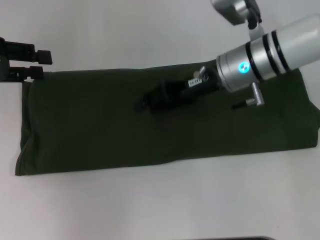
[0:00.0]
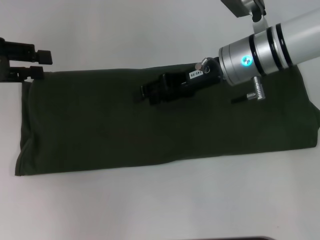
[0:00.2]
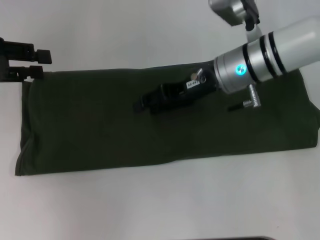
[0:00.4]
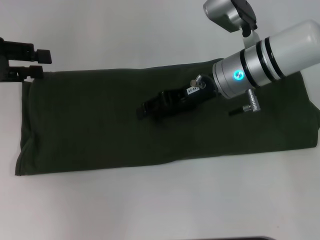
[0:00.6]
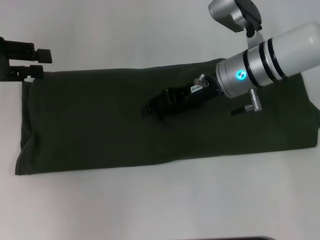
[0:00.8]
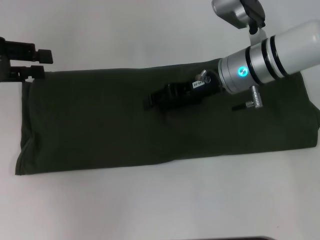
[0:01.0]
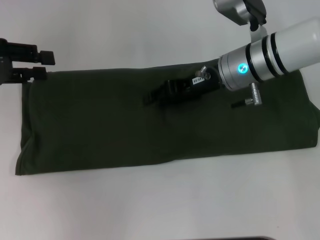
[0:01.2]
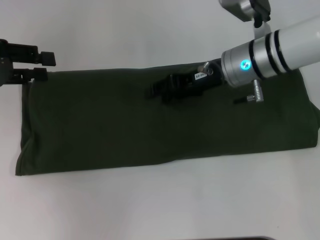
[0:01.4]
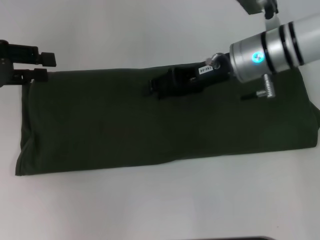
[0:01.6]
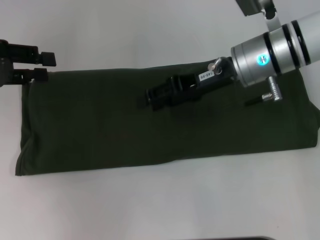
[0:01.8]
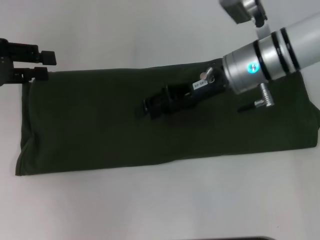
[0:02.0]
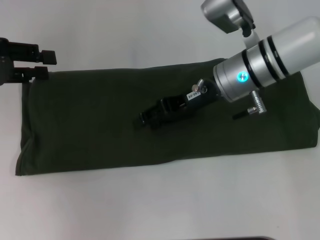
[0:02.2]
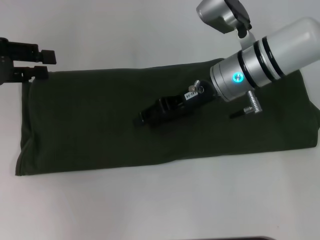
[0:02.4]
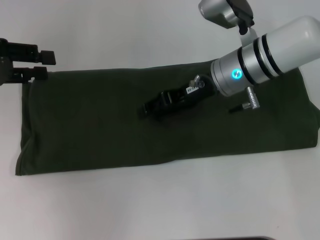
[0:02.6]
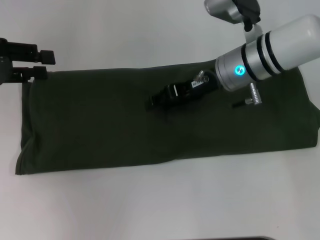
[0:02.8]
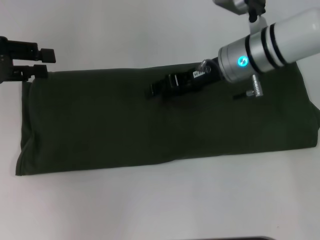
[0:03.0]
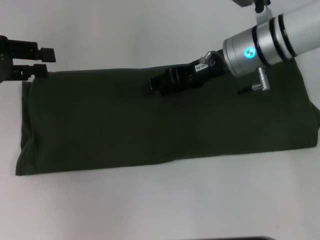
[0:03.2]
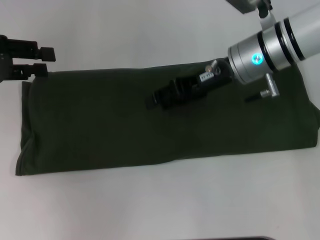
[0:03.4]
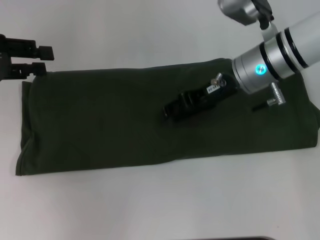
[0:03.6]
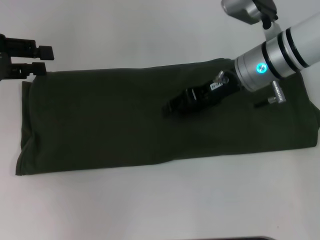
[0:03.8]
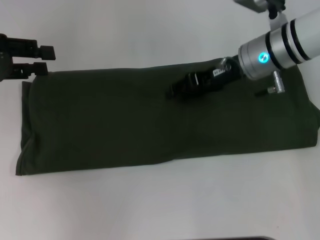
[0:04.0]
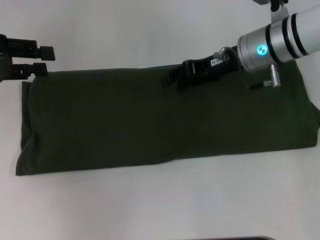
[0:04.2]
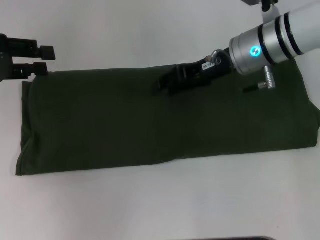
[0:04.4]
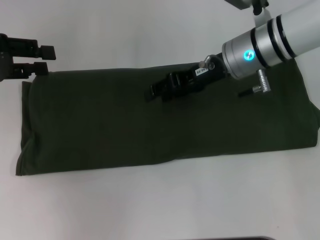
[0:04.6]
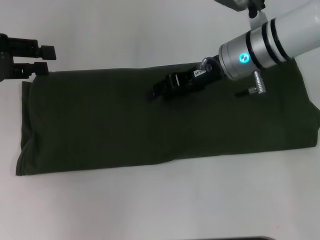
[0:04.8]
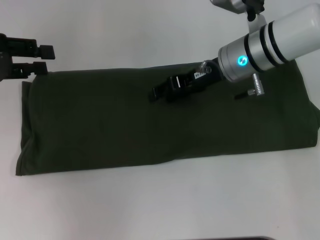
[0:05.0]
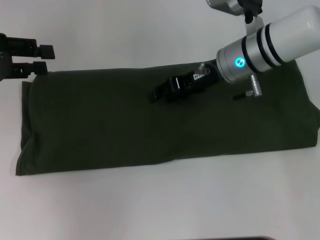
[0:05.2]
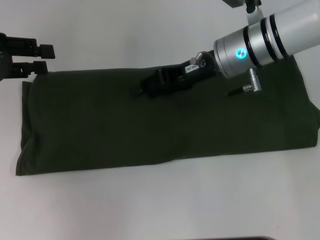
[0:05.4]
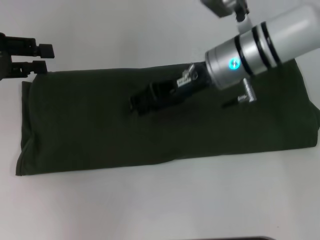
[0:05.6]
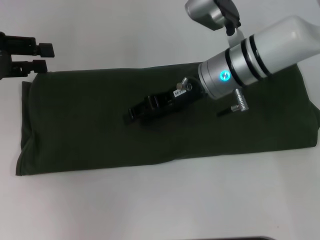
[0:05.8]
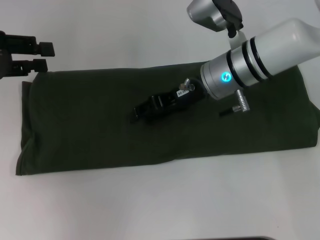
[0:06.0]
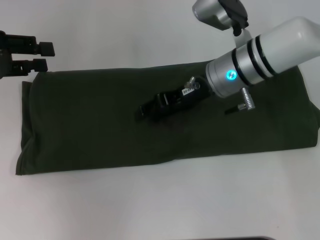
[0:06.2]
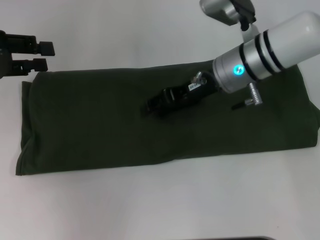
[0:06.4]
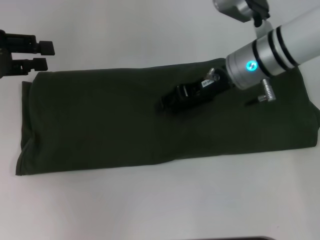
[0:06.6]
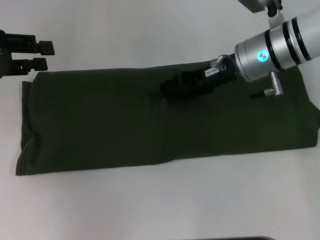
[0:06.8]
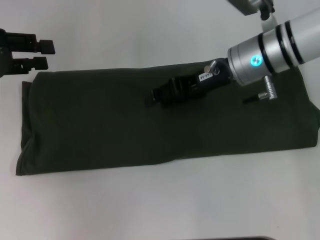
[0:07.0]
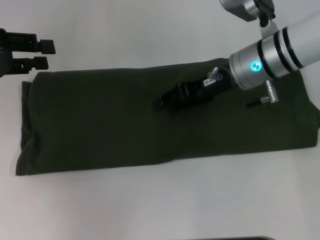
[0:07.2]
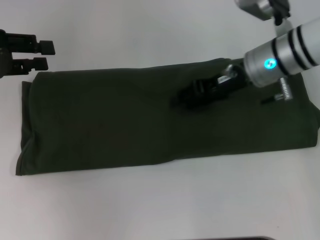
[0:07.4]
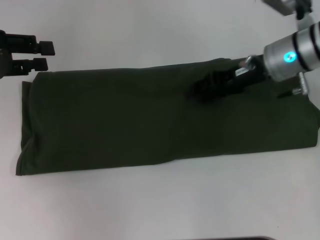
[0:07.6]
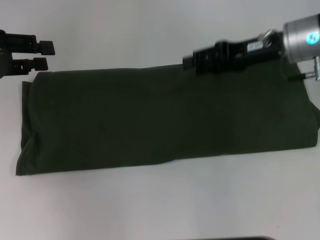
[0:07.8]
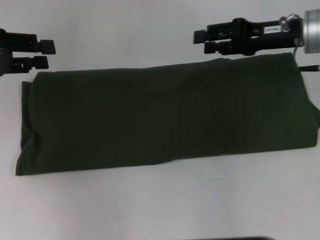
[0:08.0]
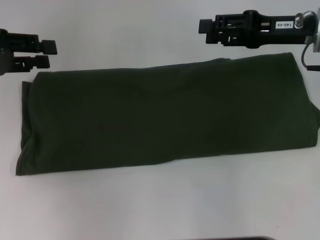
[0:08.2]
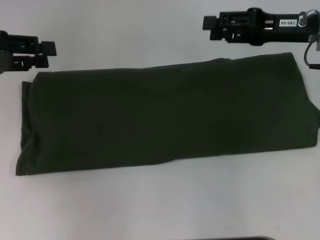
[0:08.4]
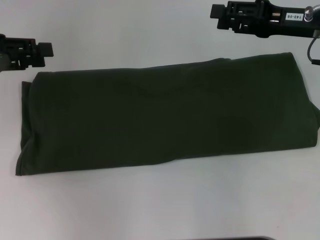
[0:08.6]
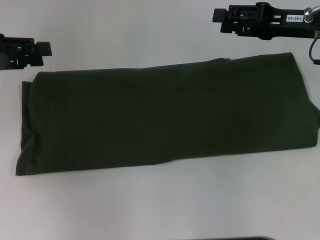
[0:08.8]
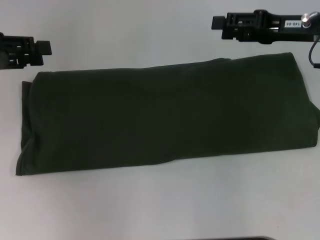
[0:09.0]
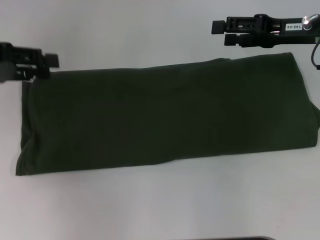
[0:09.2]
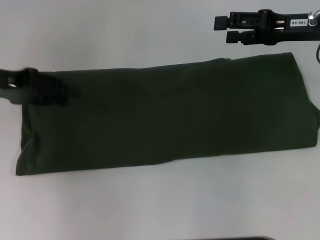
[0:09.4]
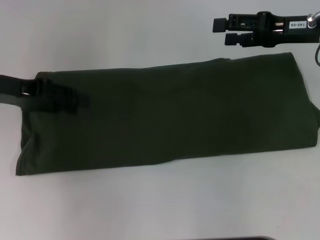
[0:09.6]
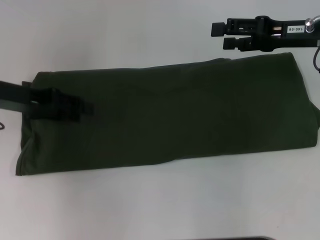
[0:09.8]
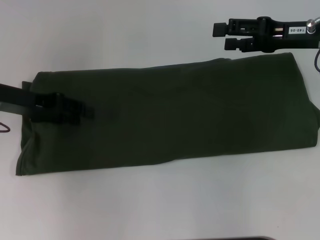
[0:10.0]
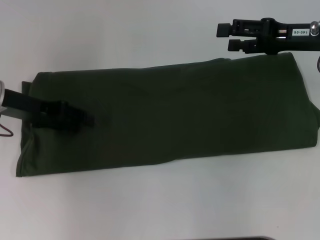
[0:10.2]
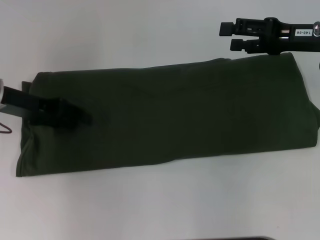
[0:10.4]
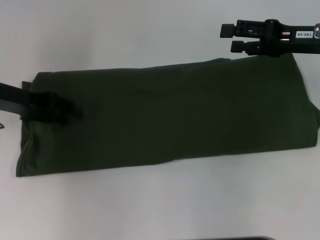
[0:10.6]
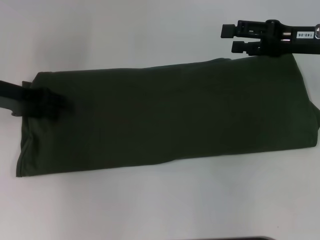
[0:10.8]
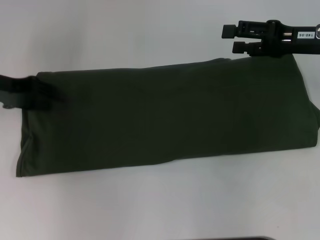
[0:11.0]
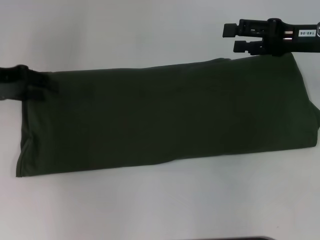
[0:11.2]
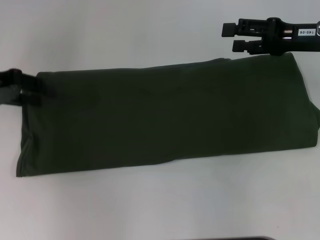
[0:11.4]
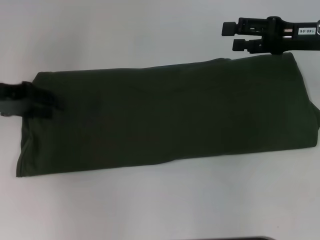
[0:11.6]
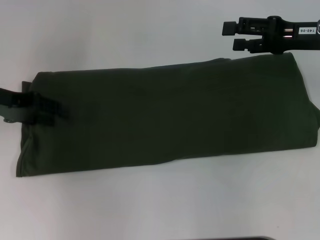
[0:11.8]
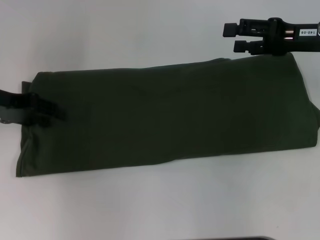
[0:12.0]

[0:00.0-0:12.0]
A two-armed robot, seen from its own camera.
0:00.0 to 0:06.0: The grippers stay close to where they were, moving slightly.
0:06.0 to 0:07.6: The right gripper goes roughly 10 cm to the right.
0:07.6 to 0:09.0: The right gripper travels to the right by some 5 cm.
0:09.0 to 0:10.4: The left gripper is displaced downward and to the right by approximately 10 cm.

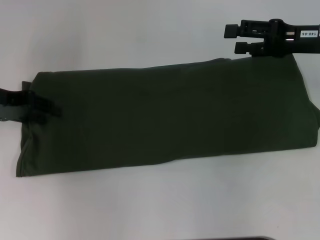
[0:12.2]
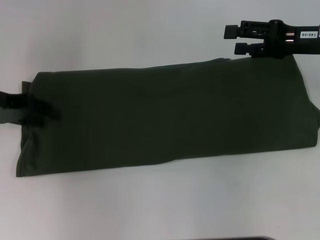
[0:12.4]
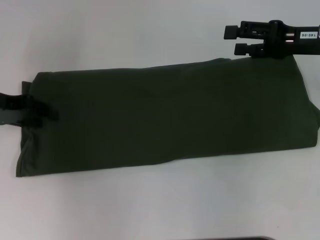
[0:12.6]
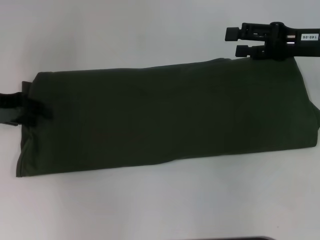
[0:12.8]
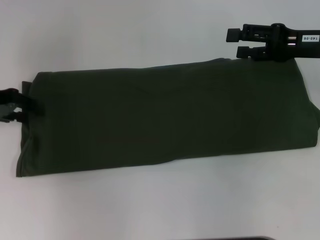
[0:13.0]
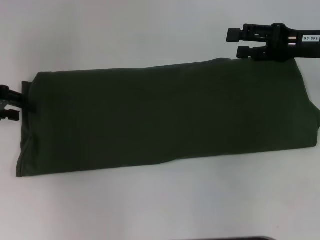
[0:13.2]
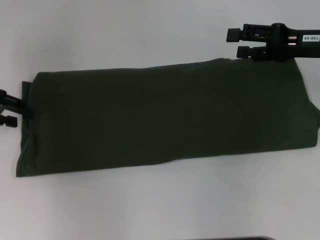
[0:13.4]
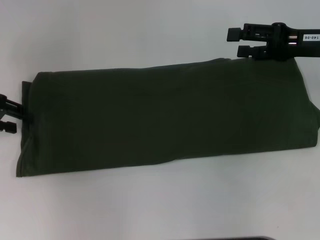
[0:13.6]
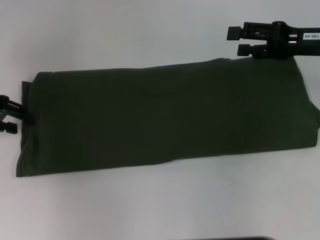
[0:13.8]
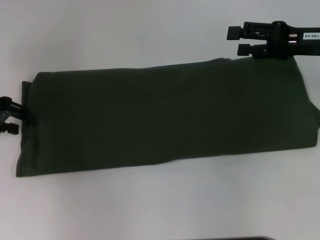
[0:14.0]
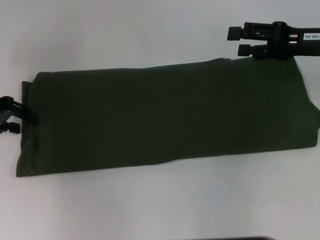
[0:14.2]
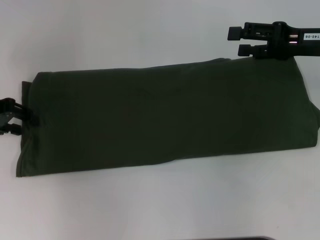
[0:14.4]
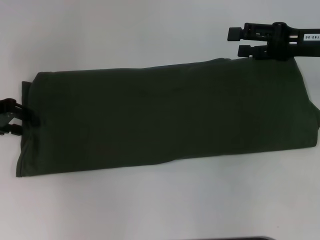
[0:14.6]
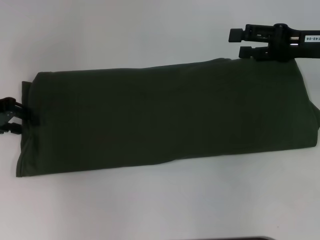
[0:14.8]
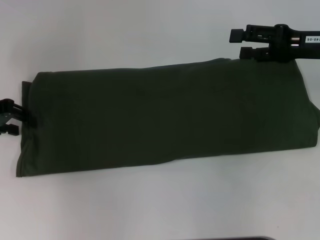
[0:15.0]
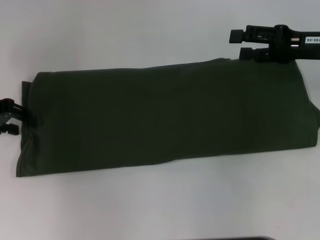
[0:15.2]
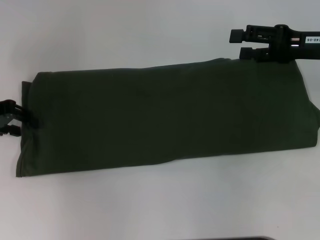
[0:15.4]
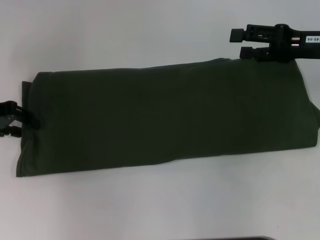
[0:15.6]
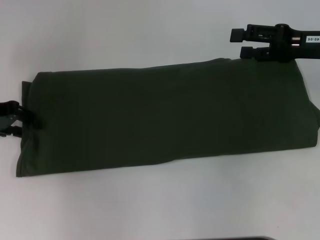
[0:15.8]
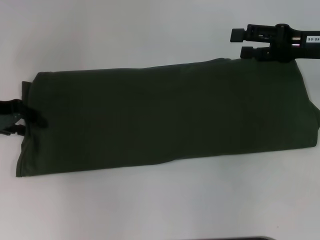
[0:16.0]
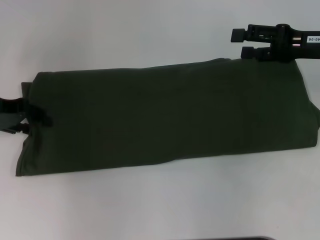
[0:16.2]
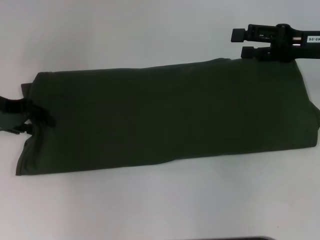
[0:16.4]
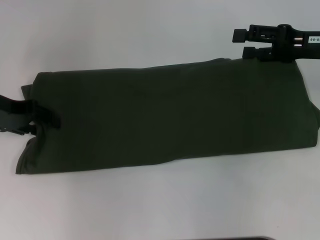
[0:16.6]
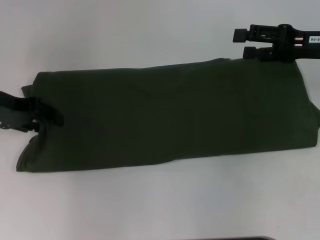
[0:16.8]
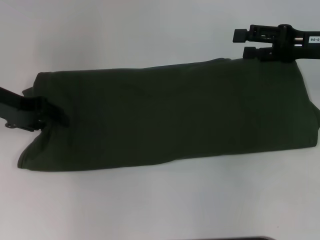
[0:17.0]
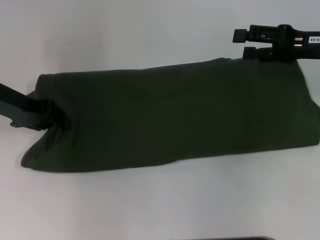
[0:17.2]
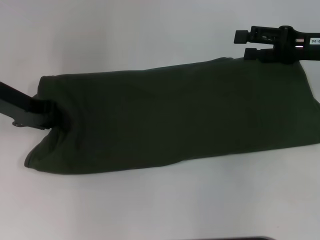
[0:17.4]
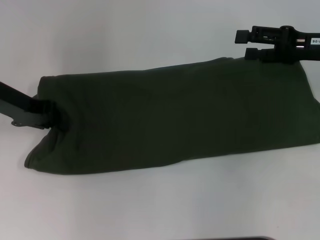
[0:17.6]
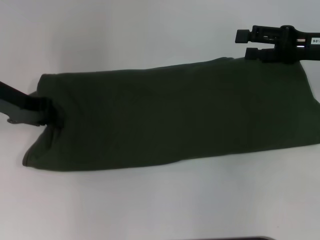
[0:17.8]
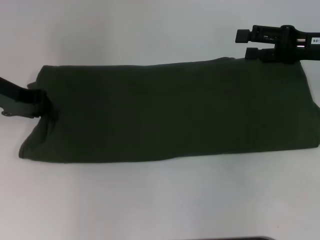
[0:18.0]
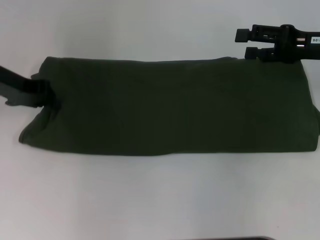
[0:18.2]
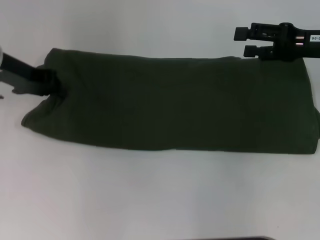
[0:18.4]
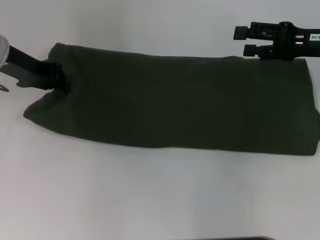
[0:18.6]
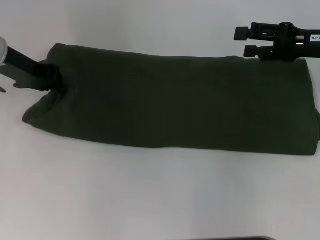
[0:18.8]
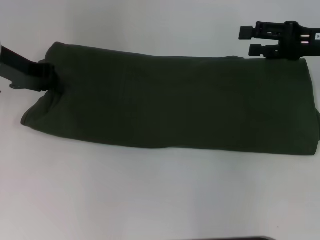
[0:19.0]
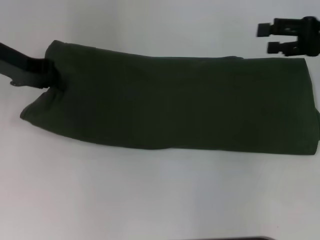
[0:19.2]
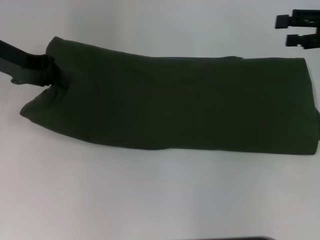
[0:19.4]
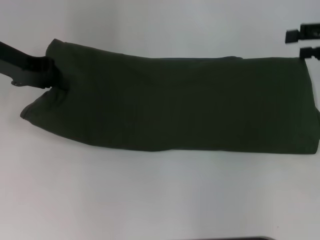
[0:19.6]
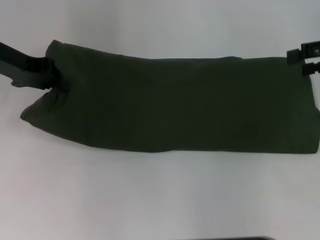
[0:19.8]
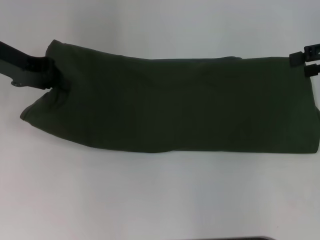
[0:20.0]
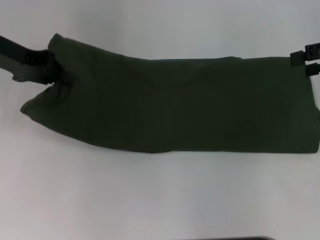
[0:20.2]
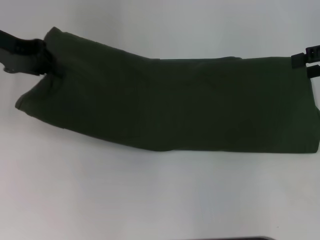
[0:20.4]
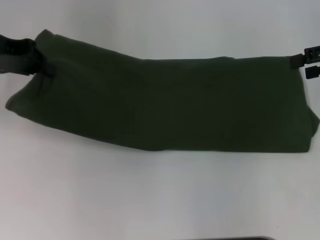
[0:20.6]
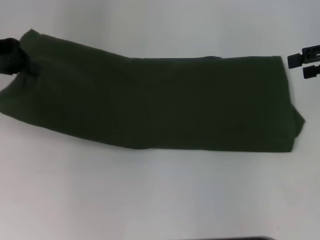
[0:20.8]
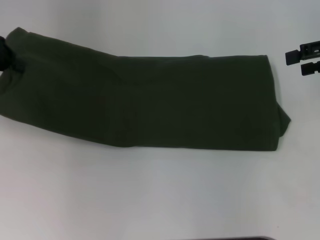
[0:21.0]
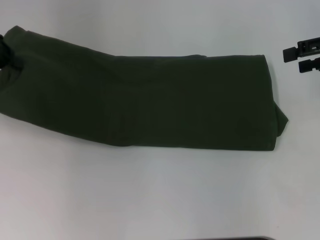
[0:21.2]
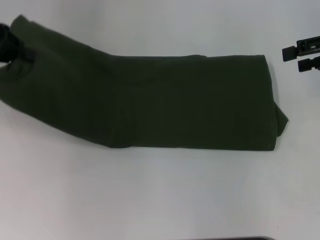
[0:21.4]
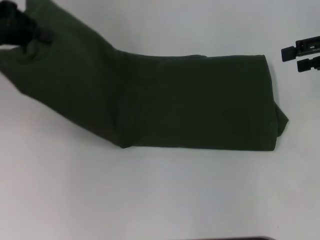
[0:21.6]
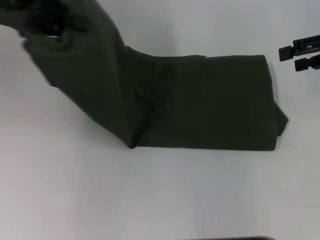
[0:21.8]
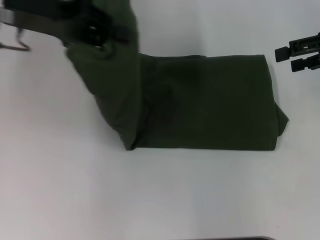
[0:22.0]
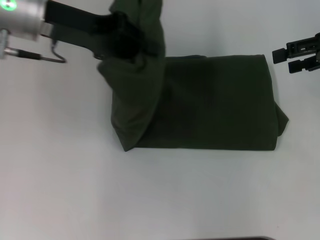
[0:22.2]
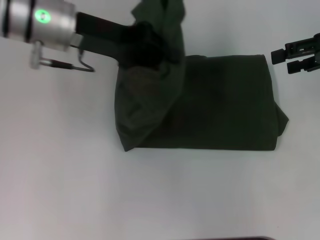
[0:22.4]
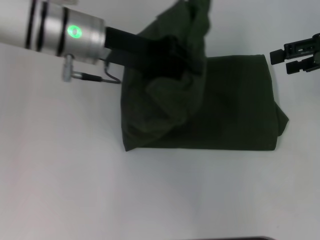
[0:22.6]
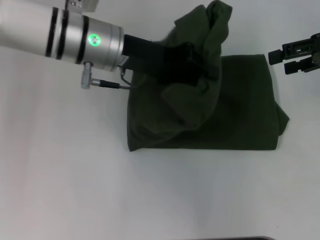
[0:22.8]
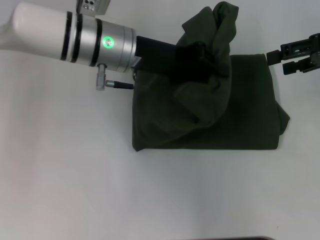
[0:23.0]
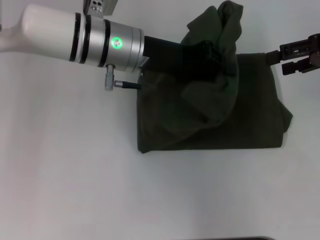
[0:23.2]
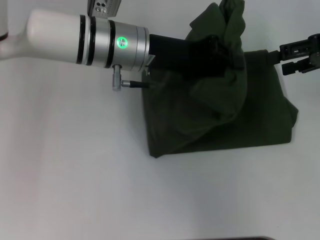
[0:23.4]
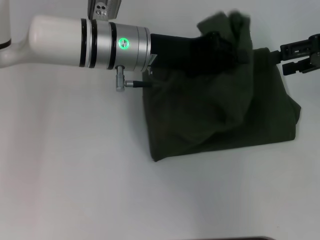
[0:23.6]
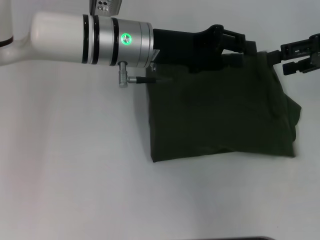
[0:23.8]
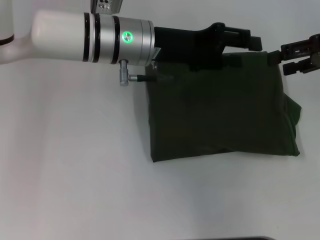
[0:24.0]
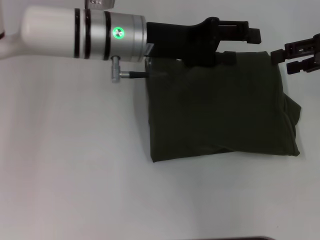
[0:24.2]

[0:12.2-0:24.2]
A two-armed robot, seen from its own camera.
Step, 0:12.2 to 0:24.2: Fold the clothes with your left hand.
0:12.2 to 0:13.8: The grippers make only small movements.
0:13.8 to 0:15.2: Neither gripper changes place.
0:15.2 to 0:16.6: The grippers stay close to where they were, moving slightly.
0:16.6 to 0:18.2: The left gripper closes up.
0:18.2 to 0:19.8: The right gripper goes some 5 cm to the right.
0:19.8 to 0:21.2: The left gripper shifts roughly 5 cm to the left.
0:21.2 to 0:22.6: The left gripper is displaced to the right by some 20 cm.
0:22.6 to 0:24.2: The left gripper opens.
